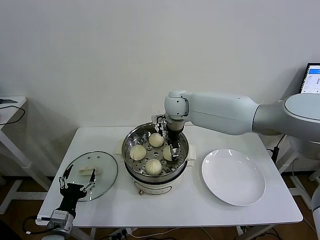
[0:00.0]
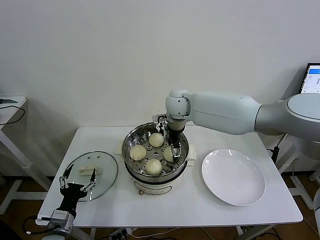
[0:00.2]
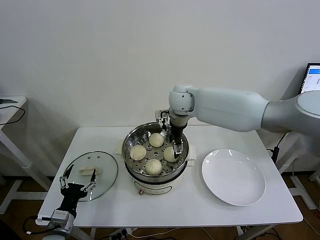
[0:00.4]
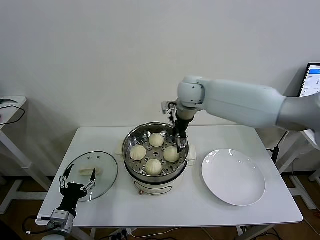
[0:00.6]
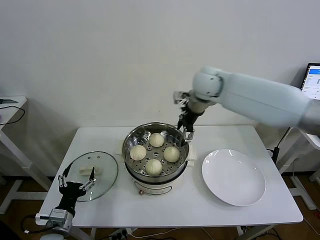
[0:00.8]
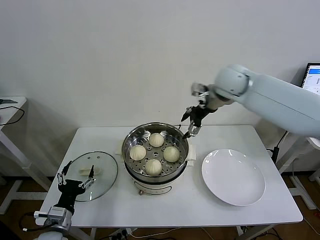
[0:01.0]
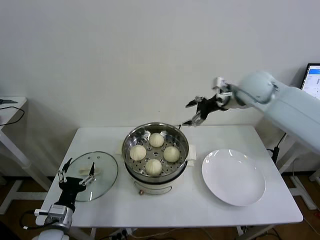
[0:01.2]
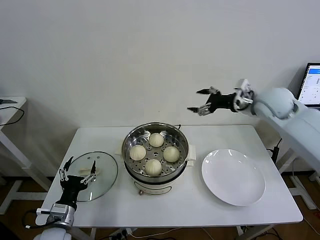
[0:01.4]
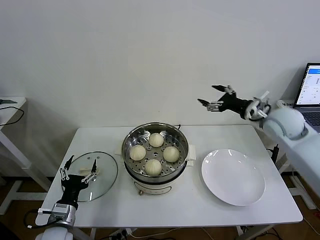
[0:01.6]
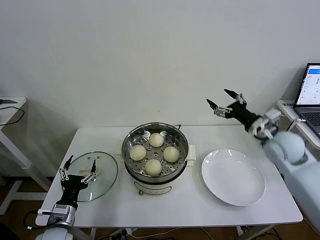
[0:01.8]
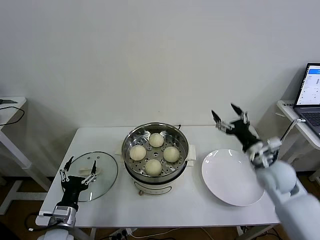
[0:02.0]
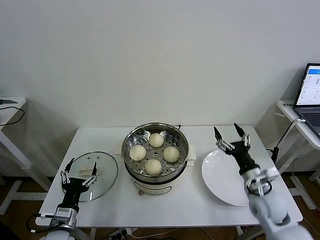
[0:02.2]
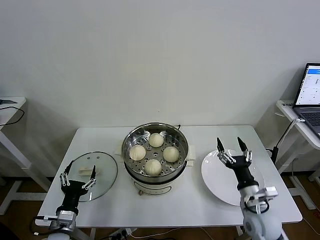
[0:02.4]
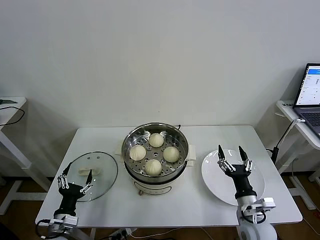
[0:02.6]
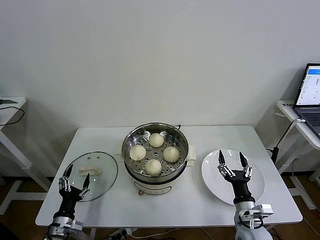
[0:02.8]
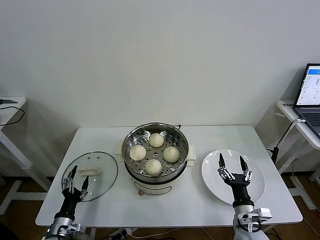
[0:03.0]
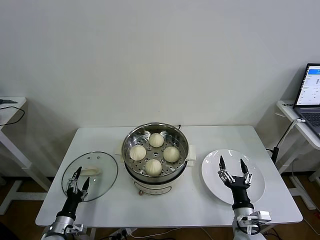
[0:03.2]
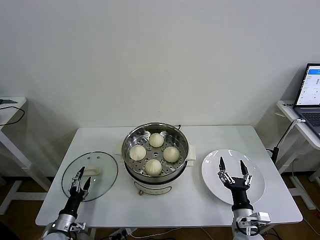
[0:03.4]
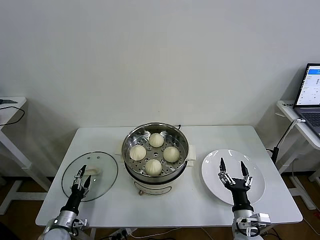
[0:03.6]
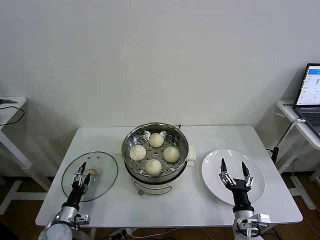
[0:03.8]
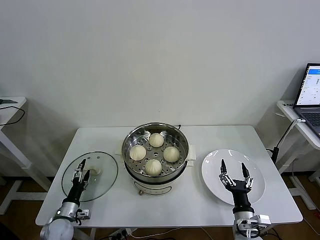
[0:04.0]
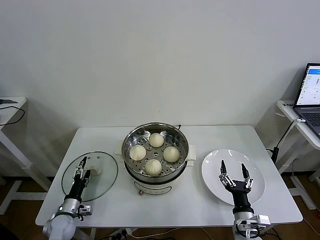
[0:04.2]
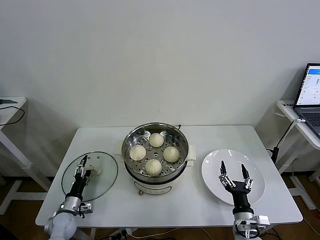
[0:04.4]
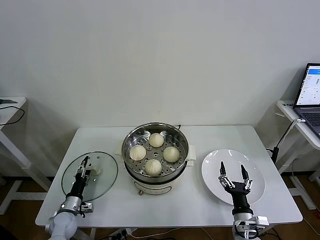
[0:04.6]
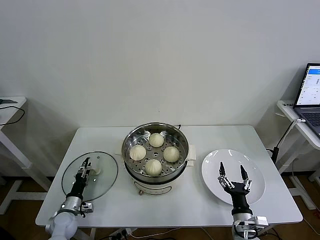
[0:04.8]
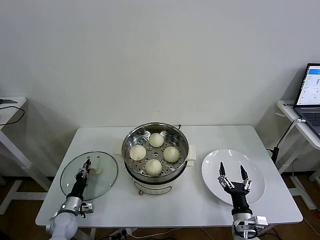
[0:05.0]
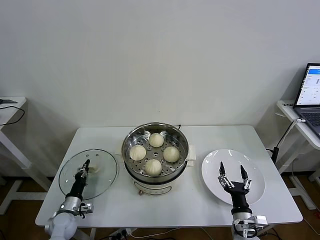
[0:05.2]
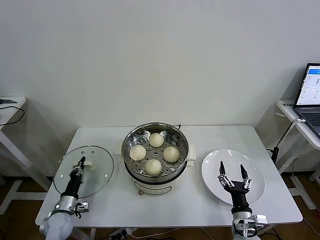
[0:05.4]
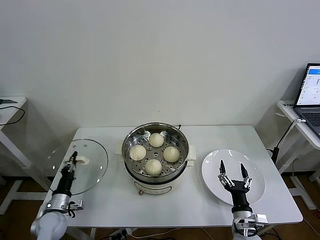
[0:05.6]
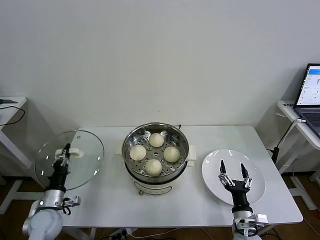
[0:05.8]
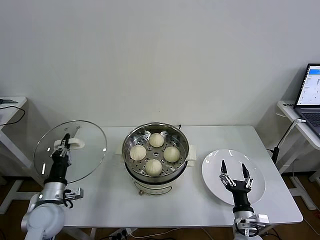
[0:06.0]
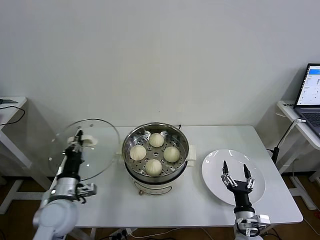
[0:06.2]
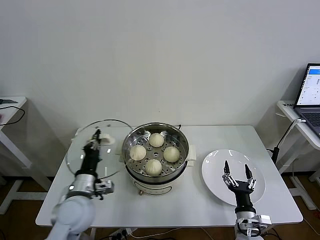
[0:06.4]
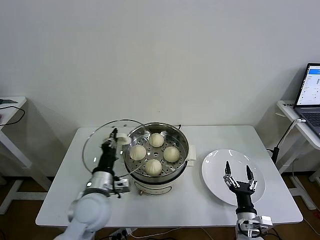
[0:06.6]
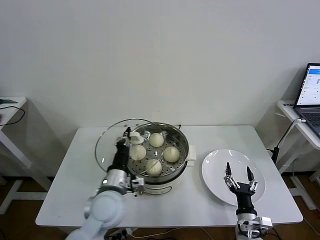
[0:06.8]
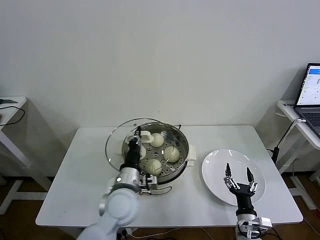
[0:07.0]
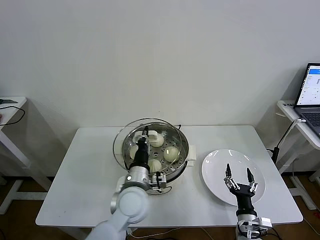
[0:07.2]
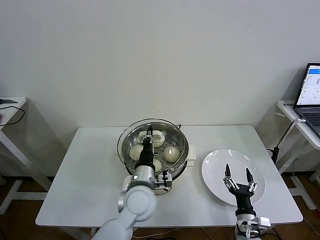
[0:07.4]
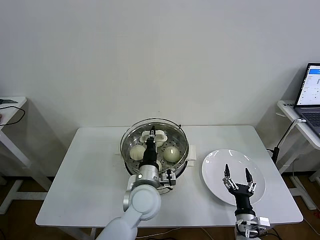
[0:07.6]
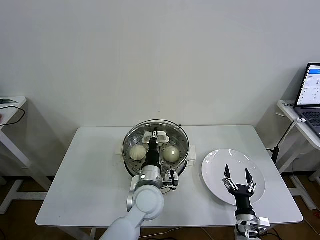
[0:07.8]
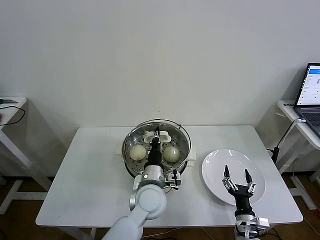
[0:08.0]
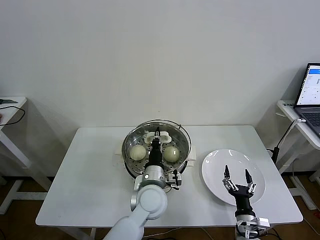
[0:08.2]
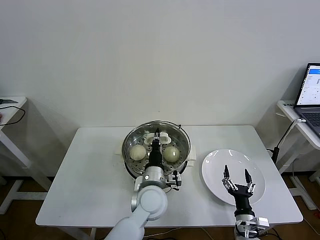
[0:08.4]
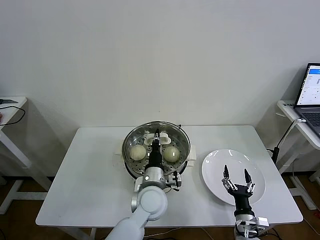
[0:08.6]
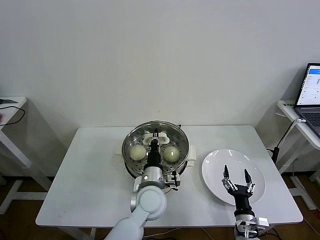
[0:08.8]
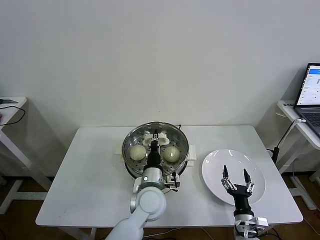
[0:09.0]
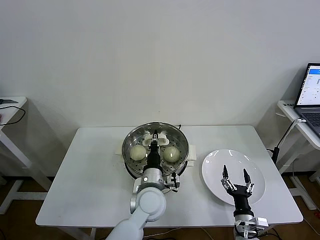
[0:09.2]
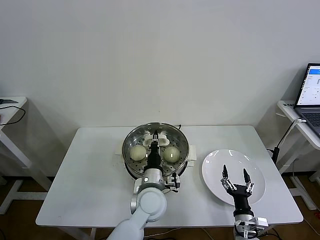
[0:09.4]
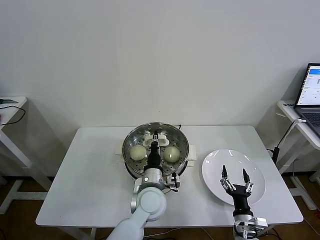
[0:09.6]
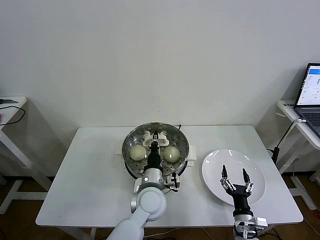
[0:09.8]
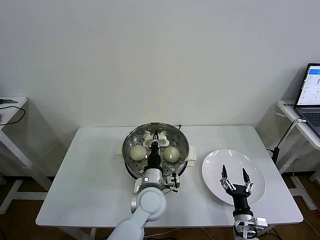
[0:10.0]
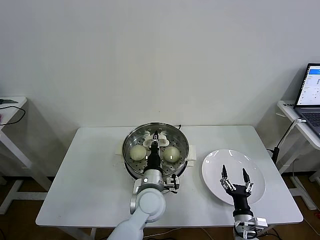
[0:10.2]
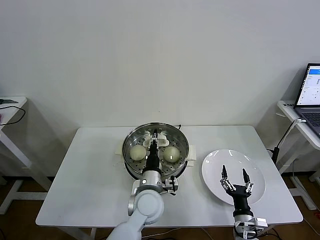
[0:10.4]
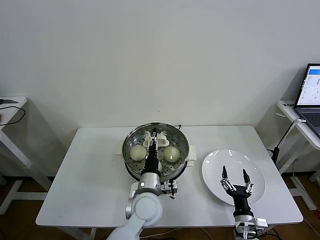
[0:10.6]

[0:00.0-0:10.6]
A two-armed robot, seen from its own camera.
Task of the whole recording: take steamed baozi put them in steamer then cover it.
Step, 0:00.4 to 0:05.2: Grasp the pot lid with left gripper.
0:00.0 to 0:01.6: The right gripper goes roughly 30 cm to the right, and opens its fingers.
0:01.6 to 0:03.0: The right gripper heads downward and backward, covering some 35 cm; the left gripper moves downward, roughly 10 cm.
0:03.0 to 0:04.6: The left gripper goes about 10 cm forward and downward.
0:04.6 to 0:06.0: The left gripper shifts roughly 15 cm upward, and closes.
0:06.0 to 0:07.6: The left gripper travels to the right by approximately 30 cm.
0:07.6 to 0:09.0: The grippers make only small movements.
0:09.0 to 0:10.6: The left gripper opens its fingers.

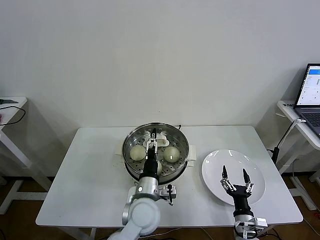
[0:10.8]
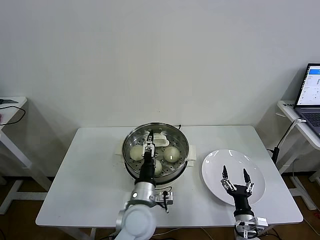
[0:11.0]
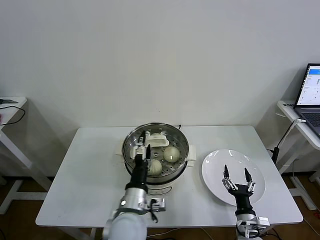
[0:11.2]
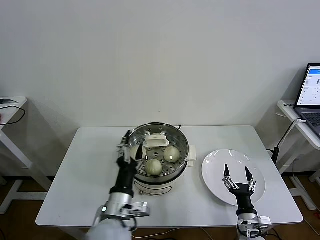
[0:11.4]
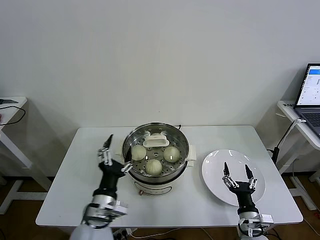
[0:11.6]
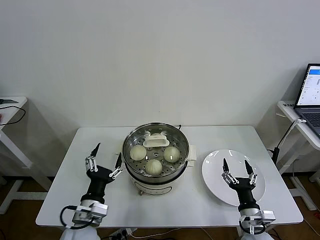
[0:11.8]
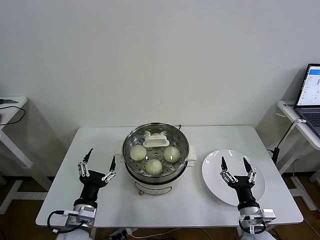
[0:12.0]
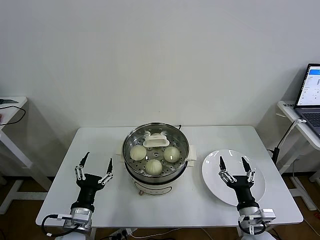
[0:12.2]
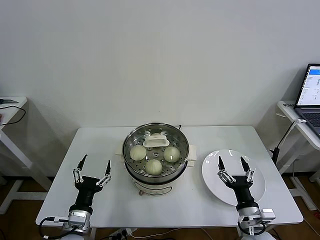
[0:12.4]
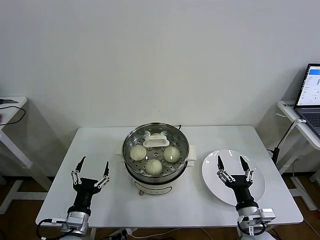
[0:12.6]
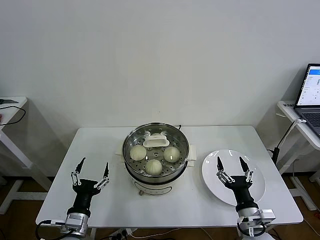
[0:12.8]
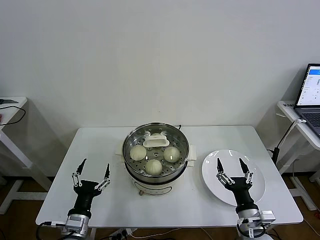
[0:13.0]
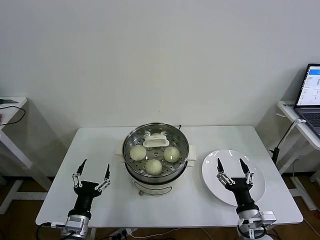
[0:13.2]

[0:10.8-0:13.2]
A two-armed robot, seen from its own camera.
Task of the whole recording: take steamed baozi put them in steamer then cover it.
0:10.8 to 0:12.0: The left gripper moves to the left and backward, about 20 cm, while the right gripper travels upward by approximately 5 cm.
0:12.0 to 0:13.2: The grippers move only a little.
